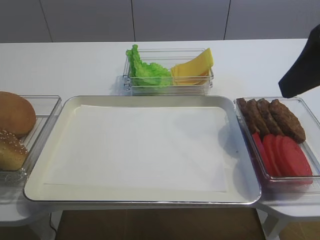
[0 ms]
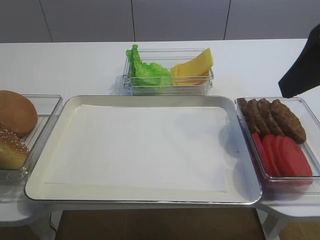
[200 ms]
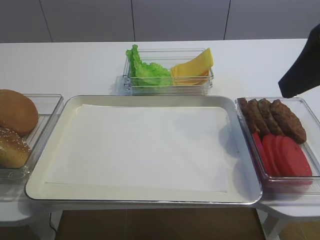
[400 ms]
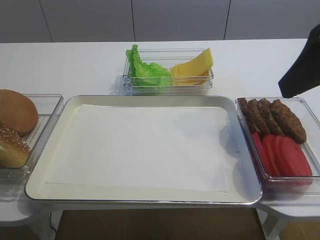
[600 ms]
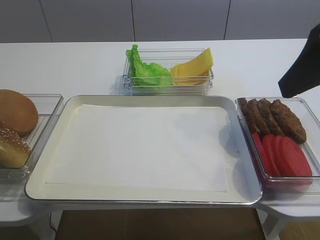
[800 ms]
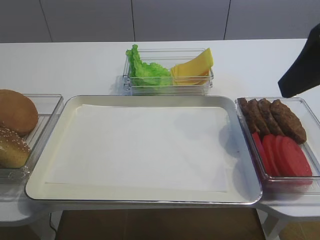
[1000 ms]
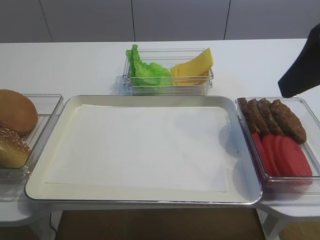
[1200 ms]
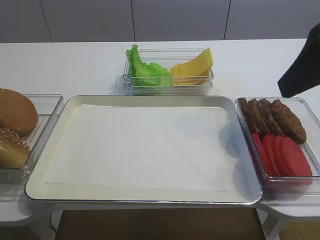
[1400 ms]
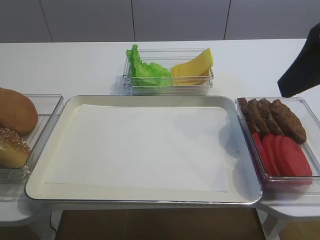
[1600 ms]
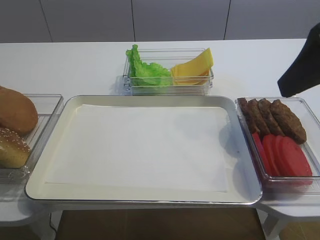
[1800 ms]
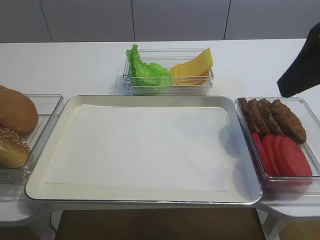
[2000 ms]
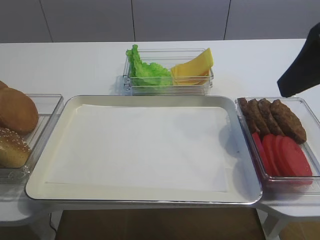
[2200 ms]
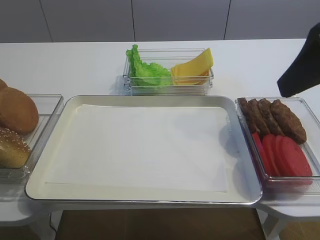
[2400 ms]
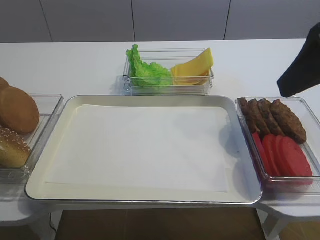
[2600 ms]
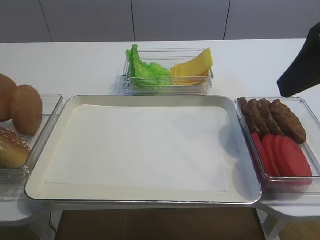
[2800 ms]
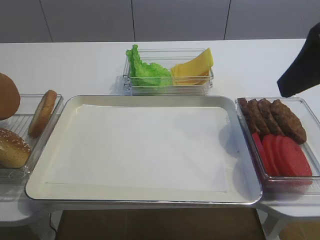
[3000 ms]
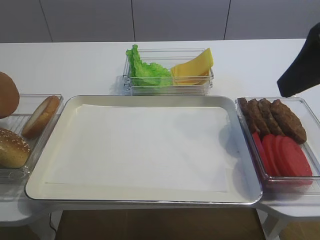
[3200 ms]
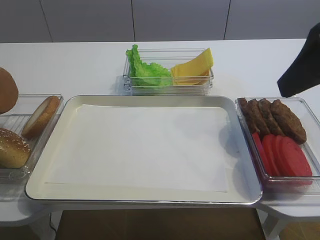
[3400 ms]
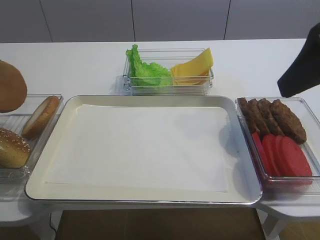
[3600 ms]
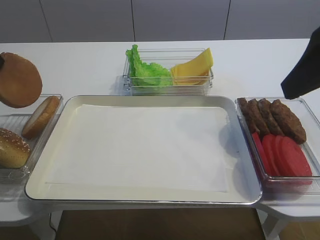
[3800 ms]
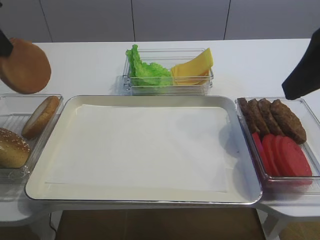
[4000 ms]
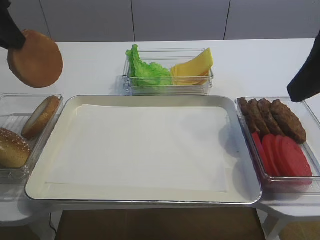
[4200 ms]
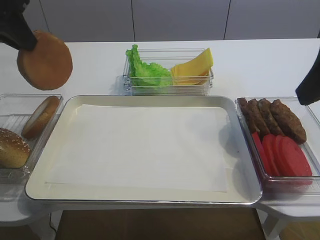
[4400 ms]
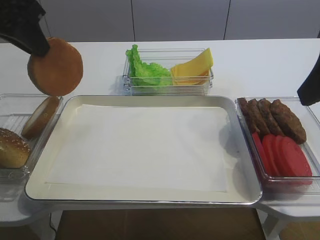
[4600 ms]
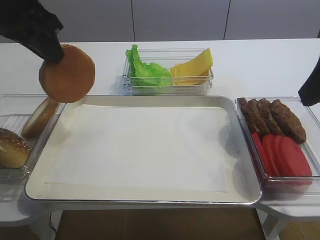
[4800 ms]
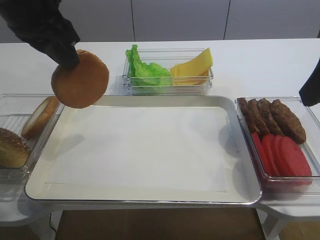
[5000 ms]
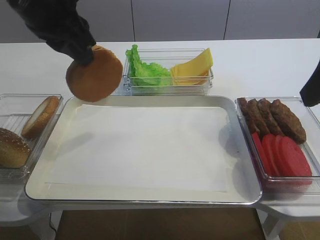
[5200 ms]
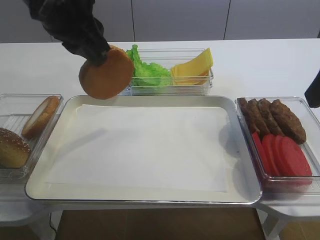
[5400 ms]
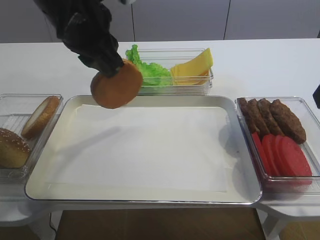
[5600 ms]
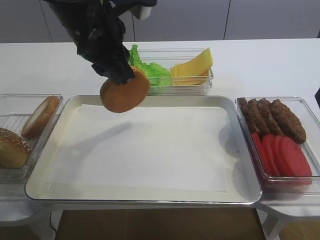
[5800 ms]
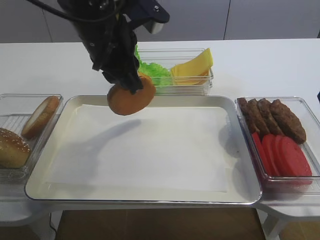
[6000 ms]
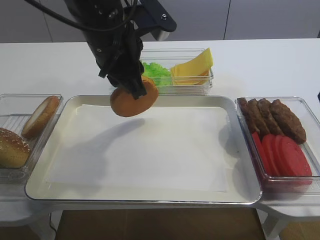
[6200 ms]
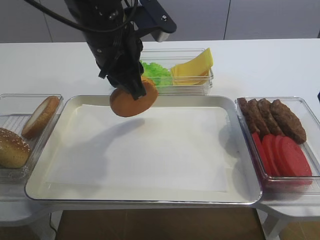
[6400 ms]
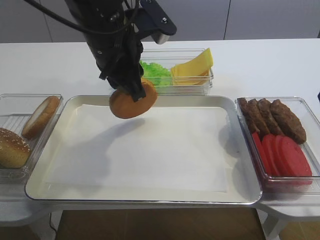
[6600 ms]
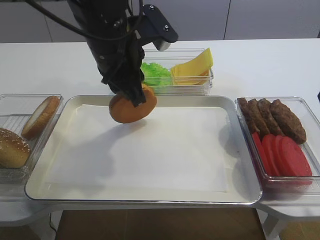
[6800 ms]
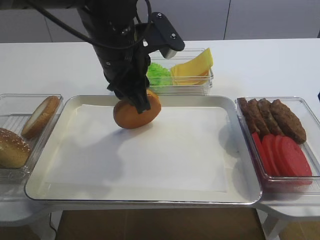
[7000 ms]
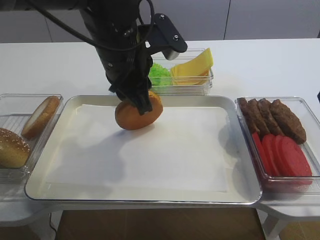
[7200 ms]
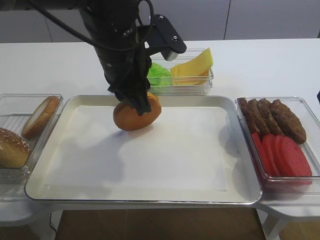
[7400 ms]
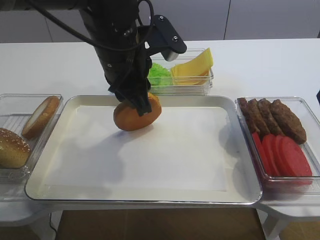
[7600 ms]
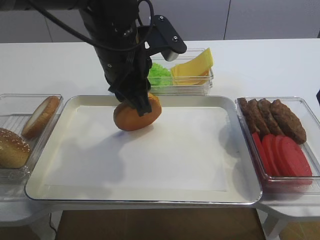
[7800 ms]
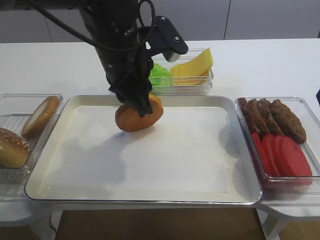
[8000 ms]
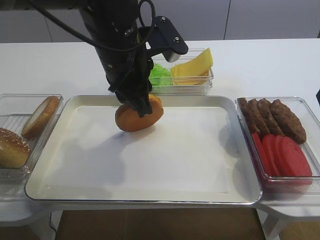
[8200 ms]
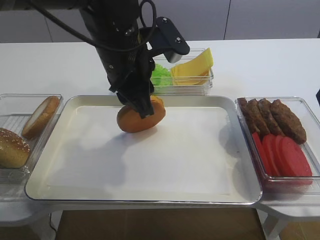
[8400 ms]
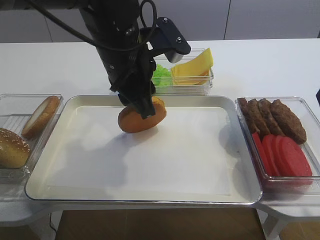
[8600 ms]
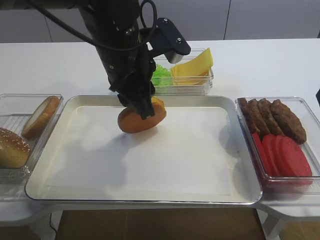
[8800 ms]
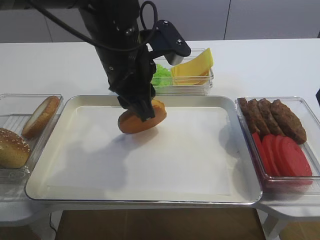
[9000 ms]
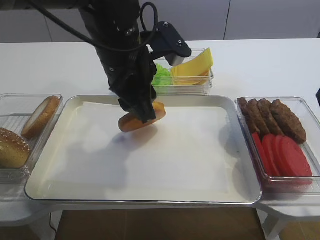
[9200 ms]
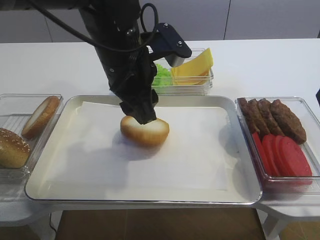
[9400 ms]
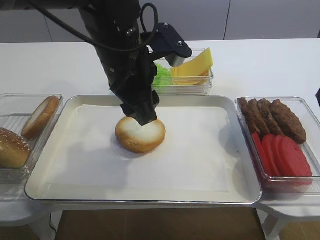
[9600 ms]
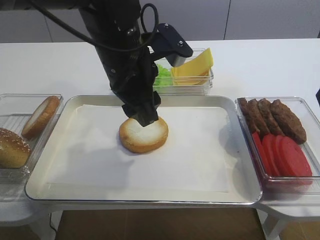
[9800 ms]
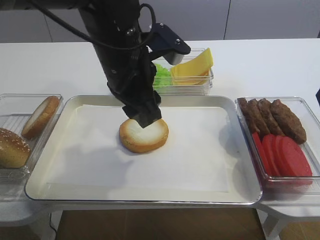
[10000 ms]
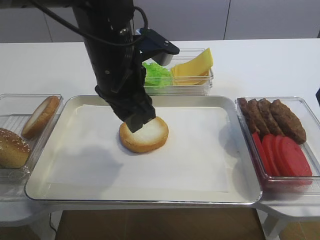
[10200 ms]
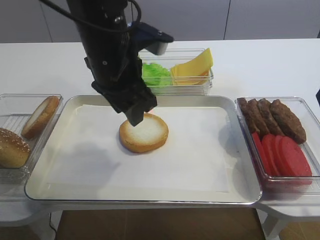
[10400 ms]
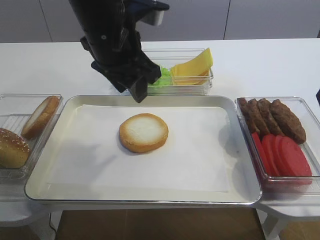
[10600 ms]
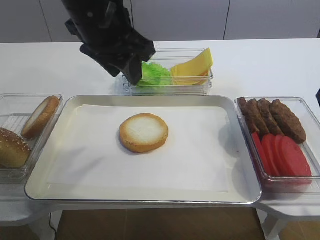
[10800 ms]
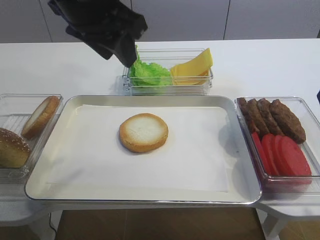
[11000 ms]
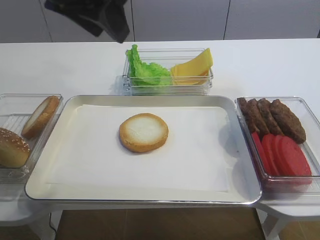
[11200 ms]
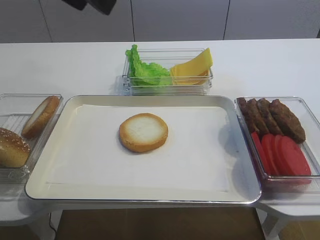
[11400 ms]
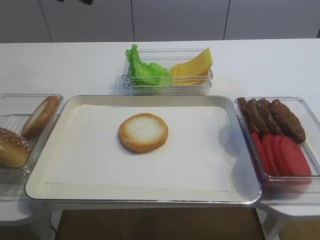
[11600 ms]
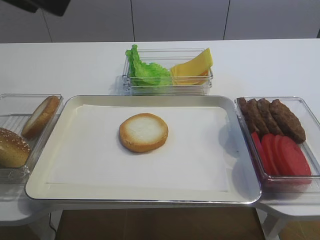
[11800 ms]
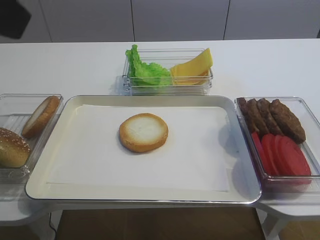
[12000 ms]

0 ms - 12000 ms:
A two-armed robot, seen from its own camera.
Step, 0 ms - 3200 ms: Pick up the bread slice with the left gripper.
Step, 3400 ms - 10400 ms: Place the bread slice on the tray with the left gripper.
0 ms - 1600 ms: The two grippers keep their place.
1600 ms - 3000 ms: The grippers stay close to where they were, moving slightly.
3000 ms - 4400 ms: The left gripper moves to the right and upward, roughly 10 cm.
4400 ms - 6000 ms: The left gripper heads to the right, covering approximately 15 cm.
6000 ms - 9000 ms: The grippers stay close to where they were, moving slightly.
9000 ms - 10400 ms: The left gripper opens.
10400 ms - 12000 ms: The right gripper travels backward and upward by roughly 10 cm; the left gripper is displaced backward, upward and to the left by about 25 cm.

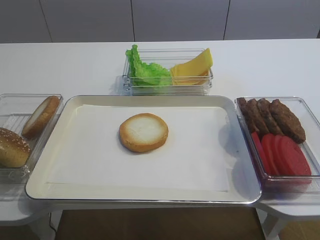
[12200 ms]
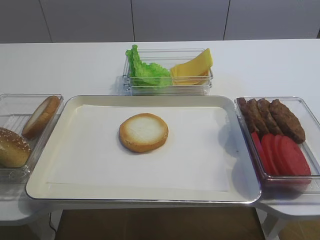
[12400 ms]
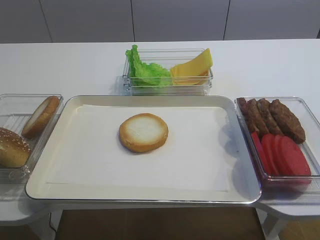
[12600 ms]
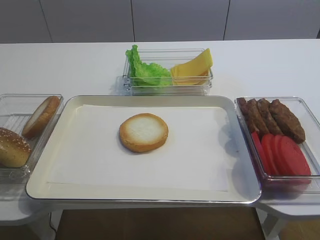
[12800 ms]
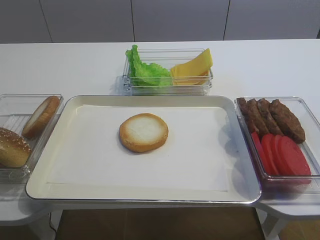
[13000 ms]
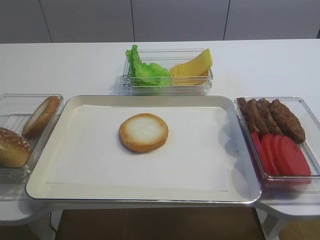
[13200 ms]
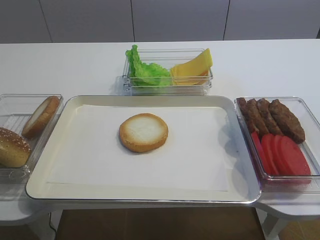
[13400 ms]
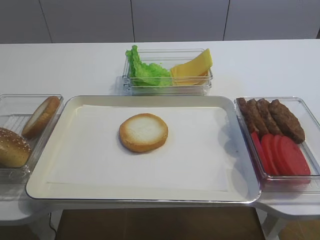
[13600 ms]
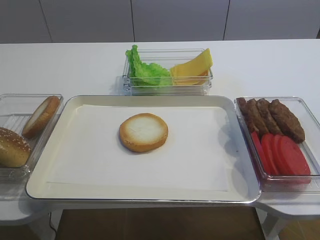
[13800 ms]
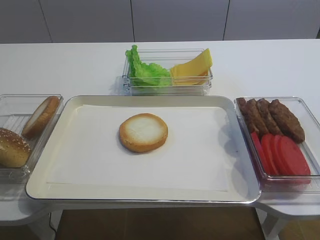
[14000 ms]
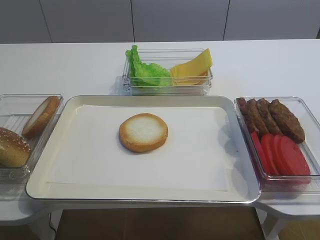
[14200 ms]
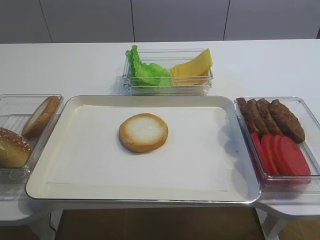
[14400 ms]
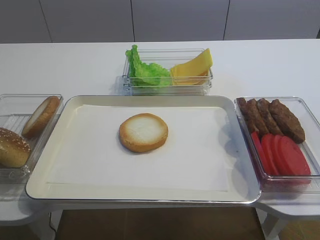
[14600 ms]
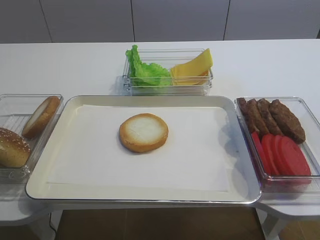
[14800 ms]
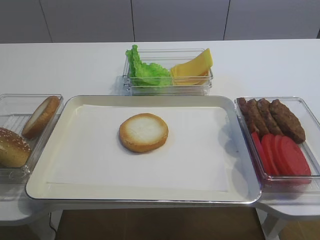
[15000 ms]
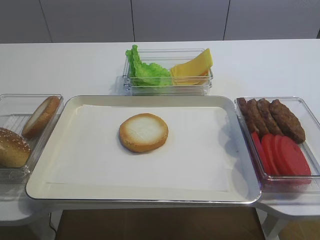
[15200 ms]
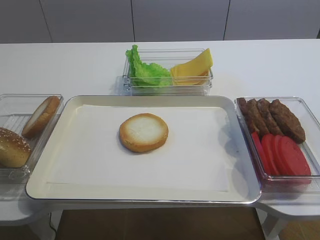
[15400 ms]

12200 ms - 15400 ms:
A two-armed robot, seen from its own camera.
12200 ms - 13800 ms: The right gripper heads backward and downward, covering approximately 15 cm.

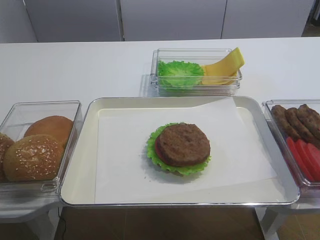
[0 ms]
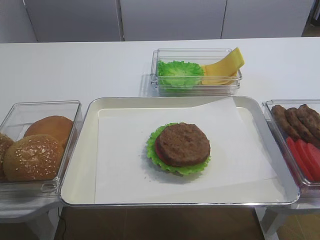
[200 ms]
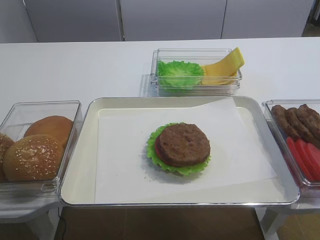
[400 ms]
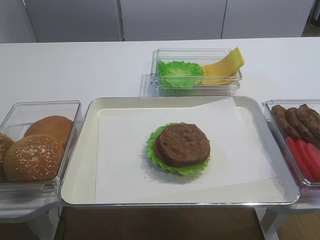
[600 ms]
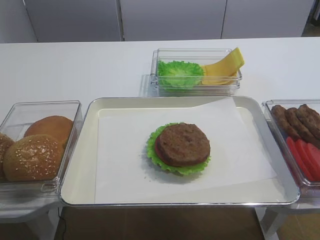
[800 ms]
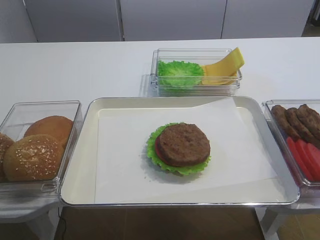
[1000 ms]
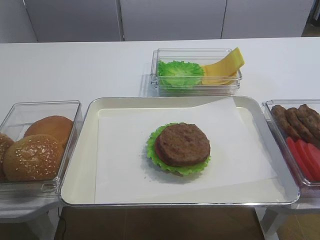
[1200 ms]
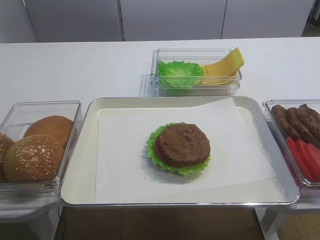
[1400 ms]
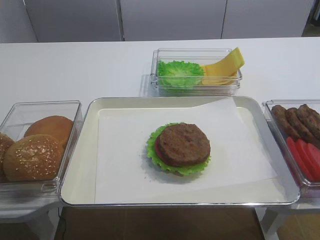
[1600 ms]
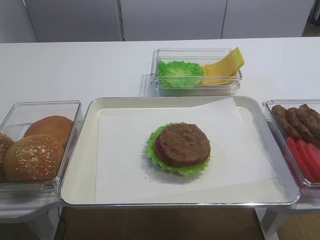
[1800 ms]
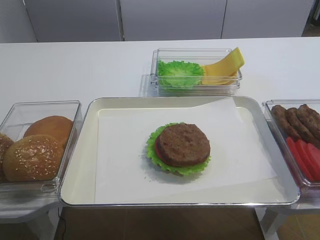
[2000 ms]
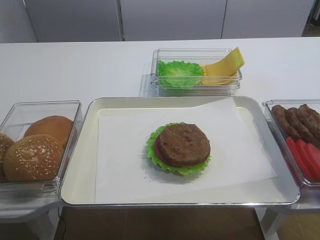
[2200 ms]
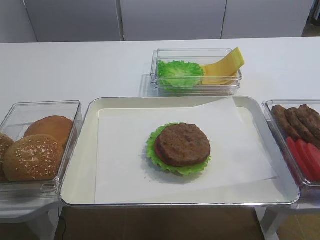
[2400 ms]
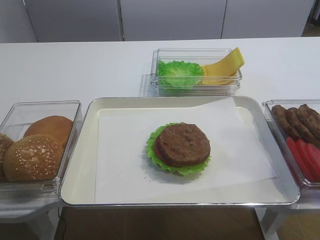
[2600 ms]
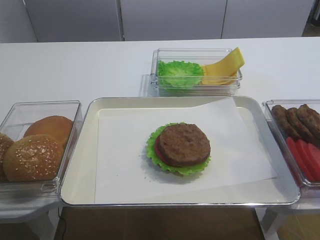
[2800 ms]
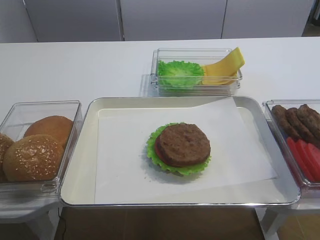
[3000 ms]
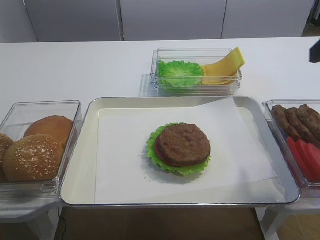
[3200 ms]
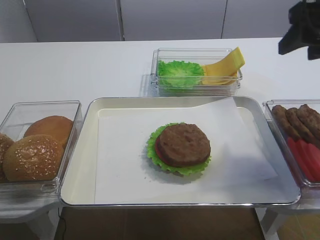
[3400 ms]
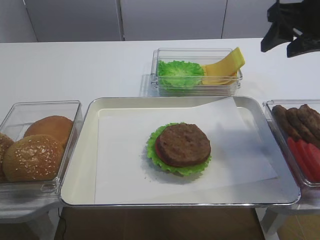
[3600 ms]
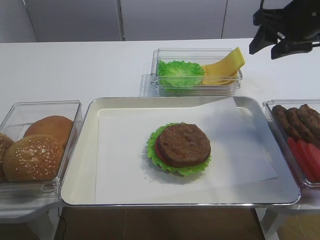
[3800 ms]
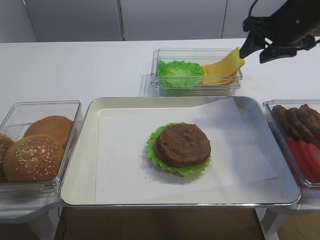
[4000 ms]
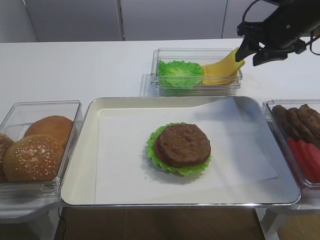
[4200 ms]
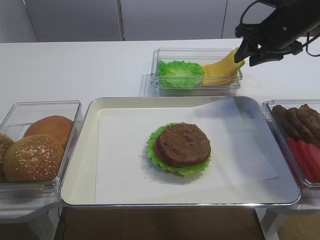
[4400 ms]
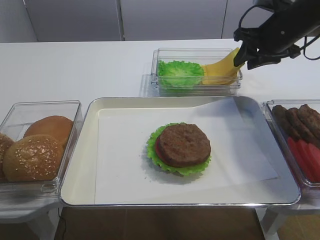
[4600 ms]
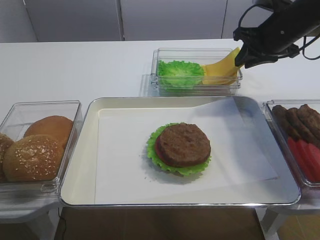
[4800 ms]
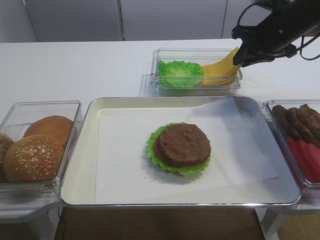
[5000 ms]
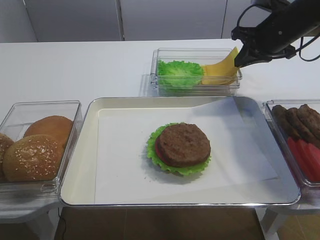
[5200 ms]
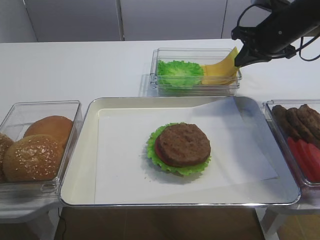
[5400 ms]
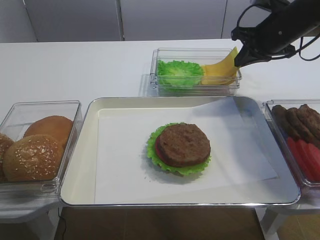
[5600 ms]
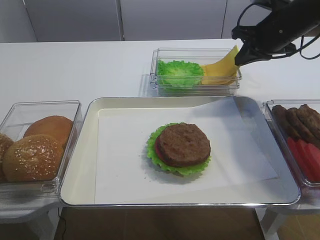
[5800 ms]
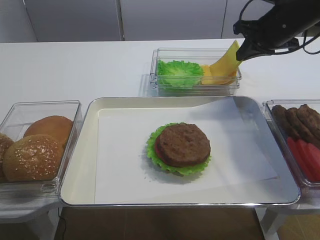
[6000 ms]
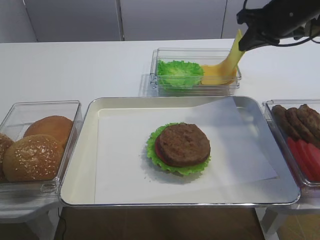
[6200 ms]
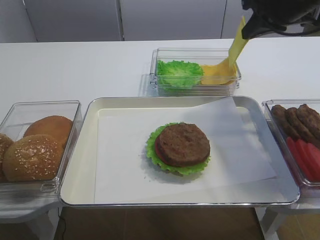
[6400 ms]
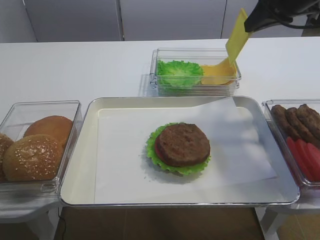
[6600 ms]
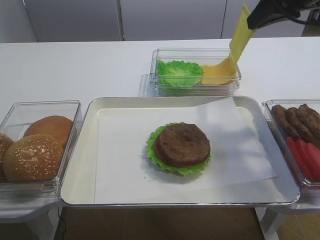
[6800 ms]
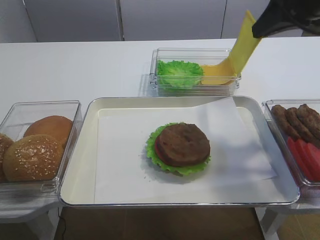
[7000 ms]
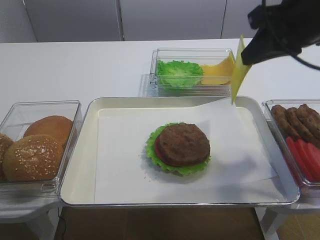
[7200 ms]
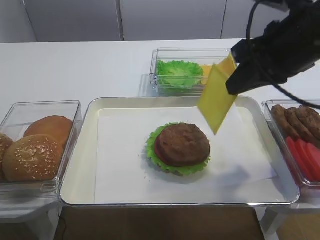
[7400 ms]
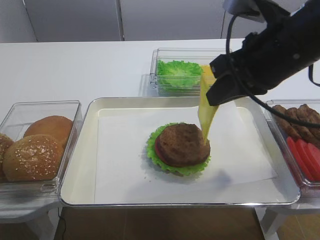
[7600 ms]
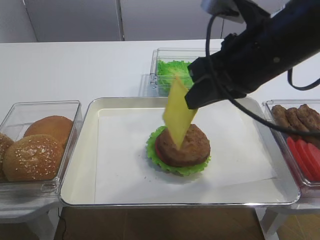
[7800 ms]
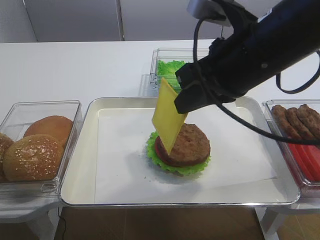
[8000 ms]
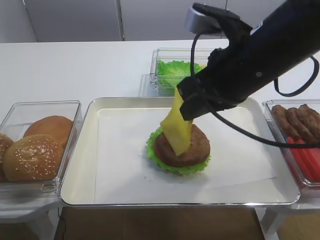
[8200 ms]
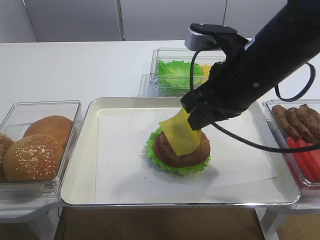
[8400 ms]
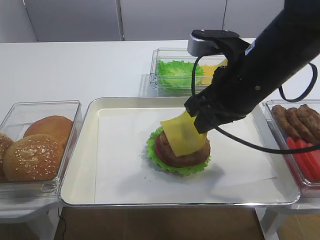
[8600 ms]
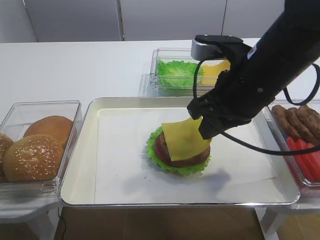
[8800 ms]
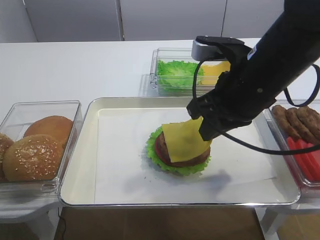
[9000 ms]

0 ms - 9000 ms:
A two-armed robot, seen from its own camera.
Step, 0 ms - 6600 ms: Pick up the cheese slice with the right gripper.
3000 ms - 4400 ms: The right gripper travels forward by about 25 cm.
4400 ms - 6000 ms: The right gripper closes.
6000 ms - 7600 ms: The right gripper heads backward and to the left, covering approximately 20 cm.
7600 ms - 9000 ms: The right gripper moves some 5 cm.
